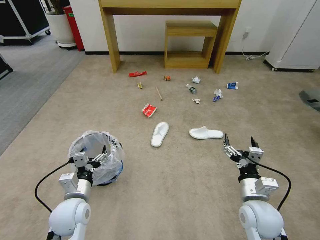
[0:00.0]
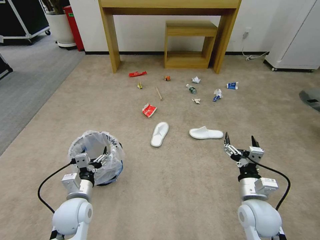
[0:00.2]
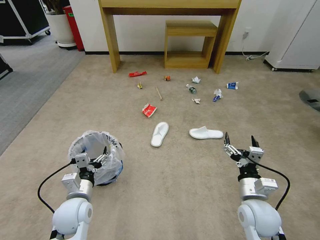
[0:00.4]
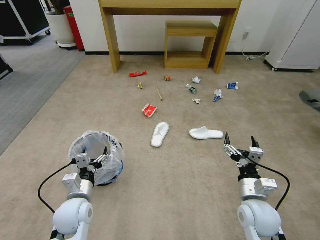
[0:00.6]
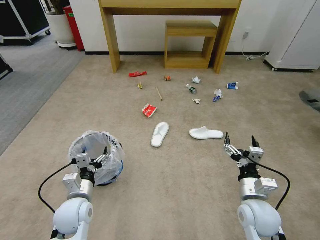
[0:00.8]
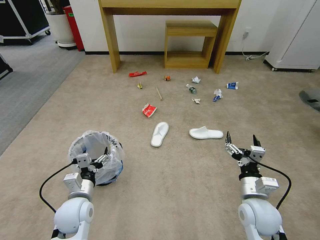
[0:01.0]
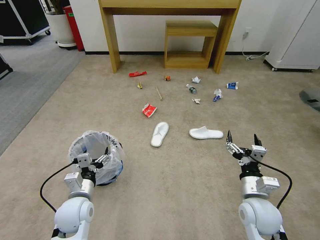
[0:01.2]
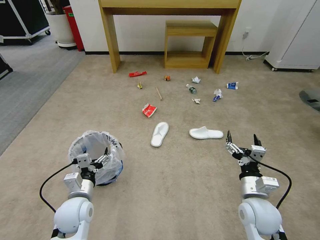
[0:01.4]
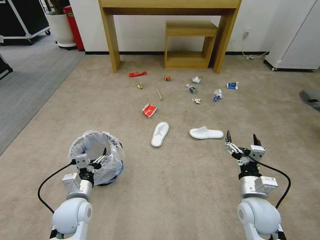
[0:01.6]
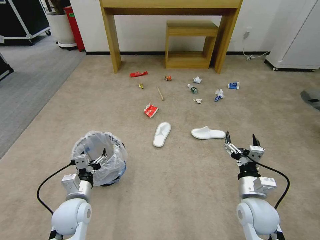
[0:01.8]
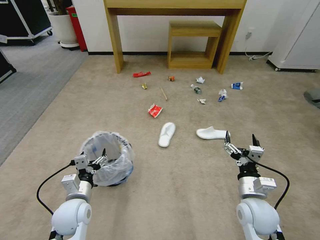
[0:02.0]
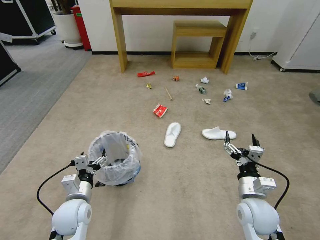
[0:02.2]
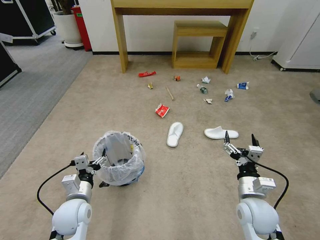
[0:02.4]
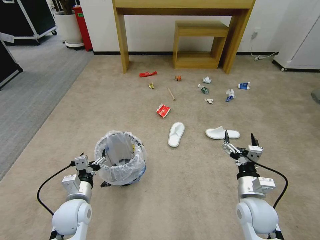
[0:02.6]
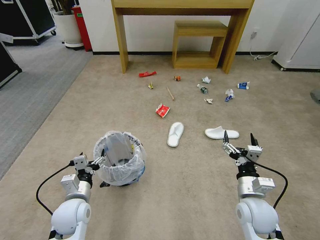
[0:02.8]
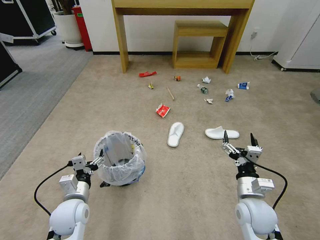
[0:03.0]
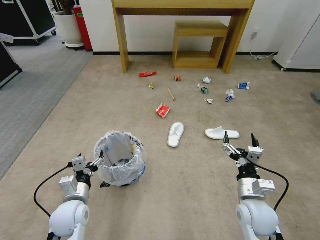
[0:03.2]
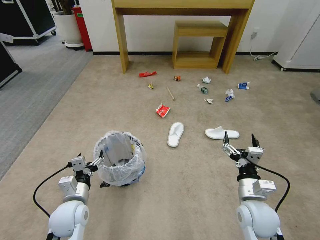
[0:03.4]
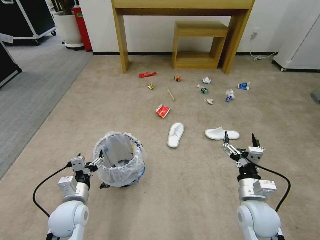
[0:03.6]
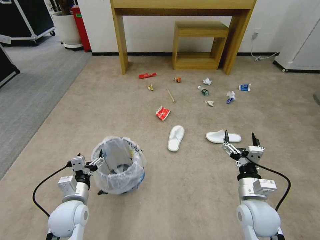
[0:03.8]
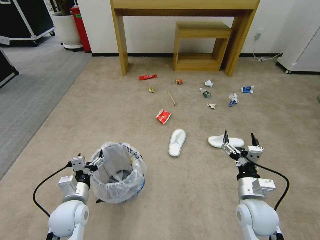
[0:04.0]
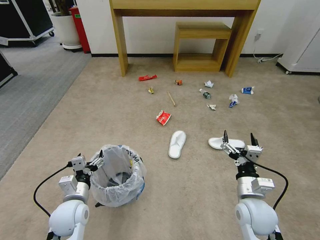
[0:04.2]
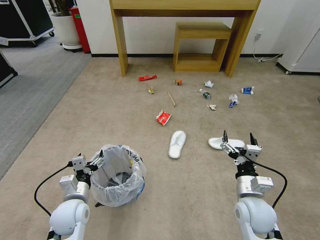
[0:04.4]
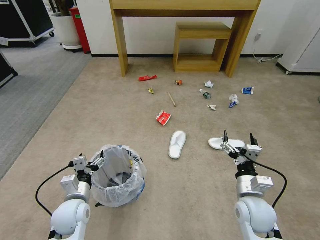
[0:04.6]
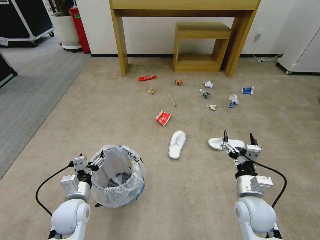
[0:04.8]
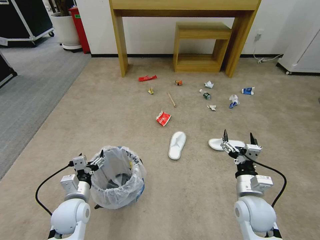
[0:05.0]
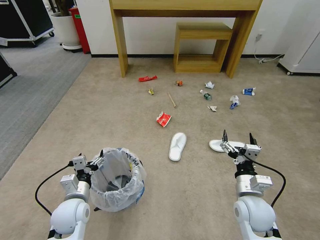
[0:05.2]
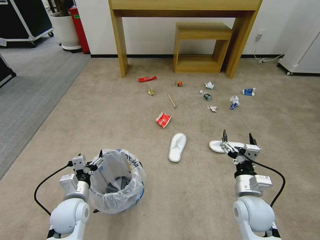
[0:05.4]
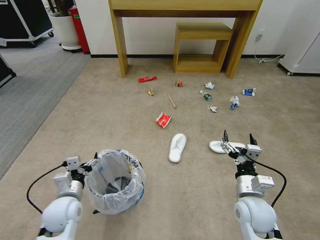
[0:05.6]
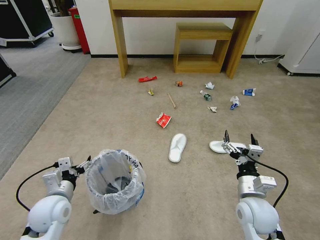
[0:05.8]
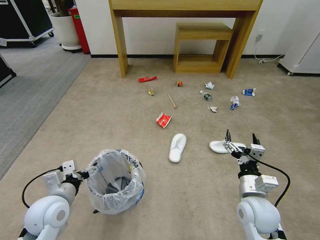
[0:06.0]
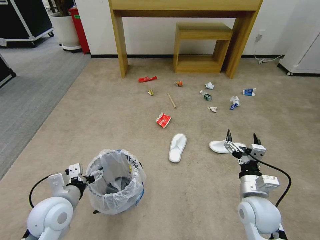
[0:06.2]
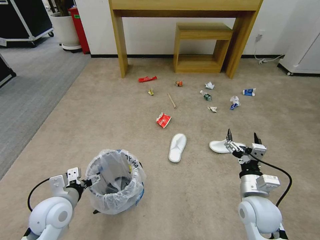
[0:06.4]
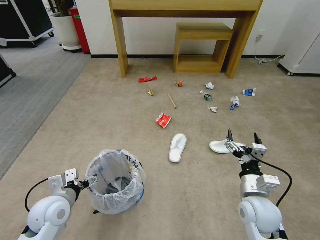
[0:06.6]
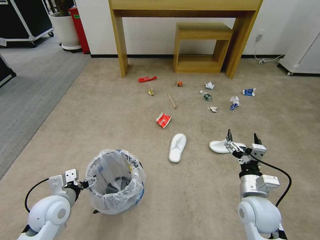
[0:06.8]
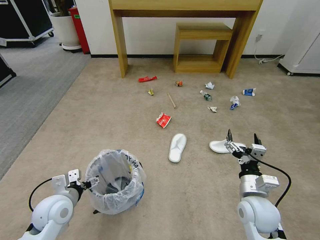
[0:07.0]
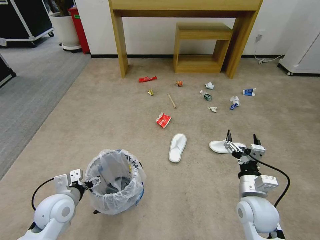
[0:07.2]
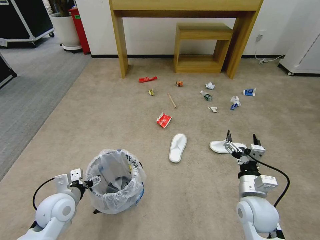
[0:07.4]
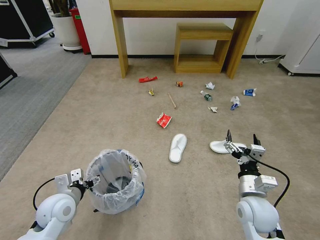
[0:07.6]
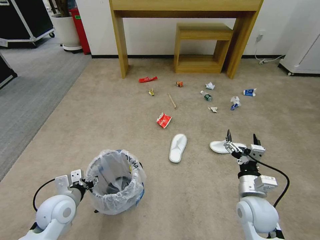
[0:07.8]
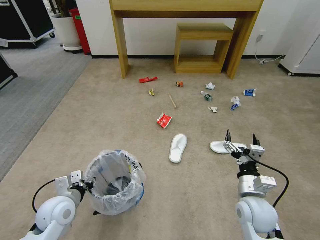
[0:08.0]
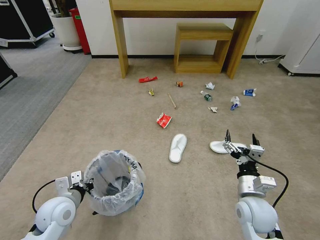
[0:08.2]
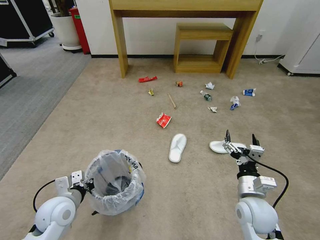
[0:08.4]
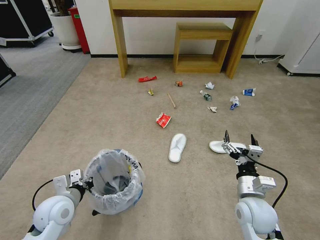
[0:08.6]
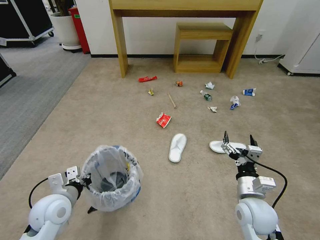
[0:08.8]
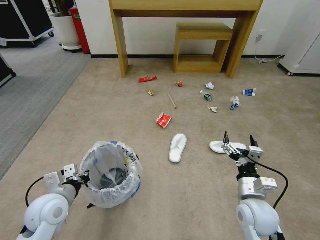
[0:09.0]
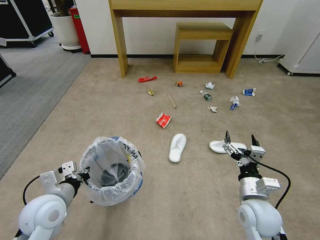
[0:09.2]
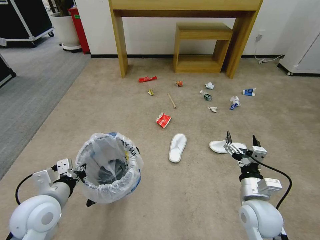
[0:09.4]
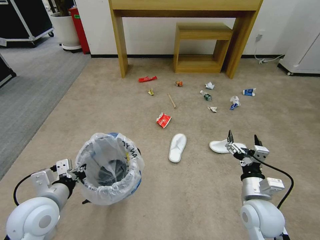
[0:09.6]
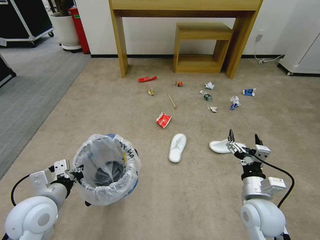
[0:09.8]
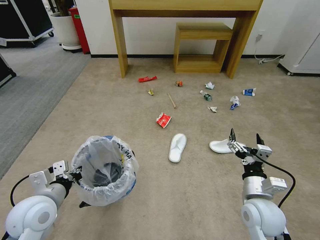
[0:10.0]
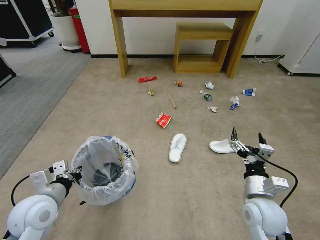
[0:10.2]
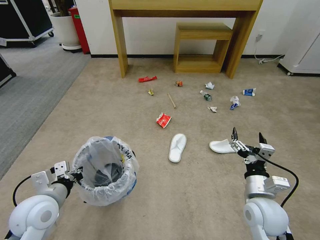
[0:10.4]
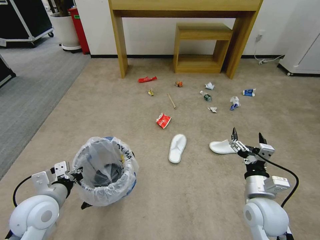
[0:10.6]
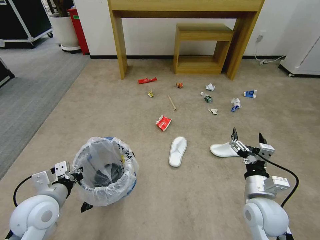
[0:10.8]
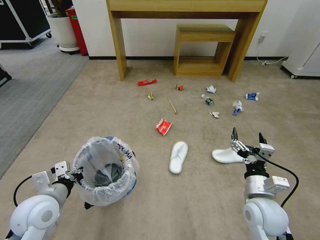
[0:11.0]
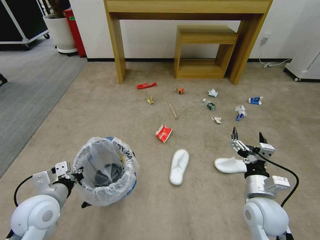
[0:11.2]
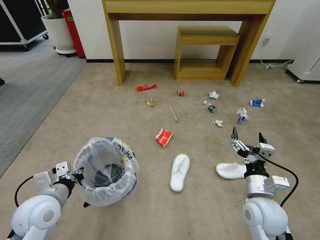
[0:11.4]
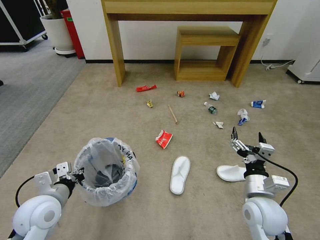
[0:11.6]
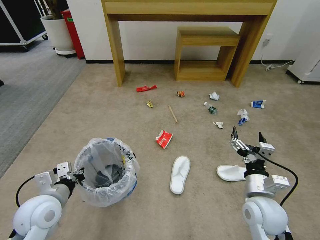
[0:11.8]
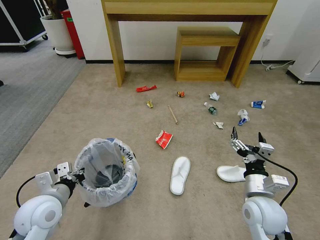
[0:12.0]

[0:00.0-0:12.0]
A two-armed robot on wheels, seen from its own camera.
Task of the whole recording: Pick up the trash bin and place the garbage on the floor into it.
0:01.6 to 0:04.4: Both grippers stay about where they are.
0:04.4 to 0:06.0: The left gripper moves upward, some 5 cm.
0:06.0 to 0:07.6: The grippers make only small movements.
0:07.6 to 0:09.0: The left gripper closes up.
0:09.0 to 0:10.4: The grippers move only a little.

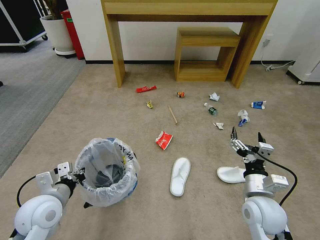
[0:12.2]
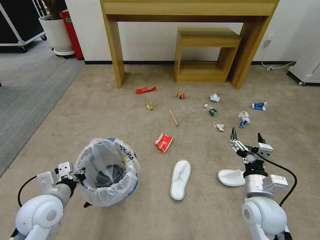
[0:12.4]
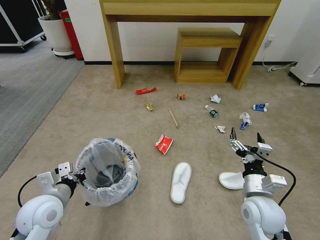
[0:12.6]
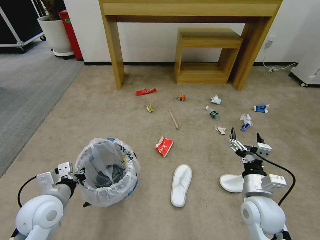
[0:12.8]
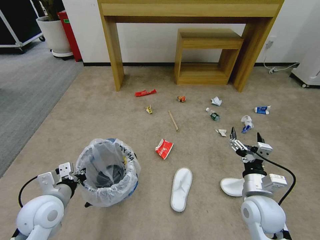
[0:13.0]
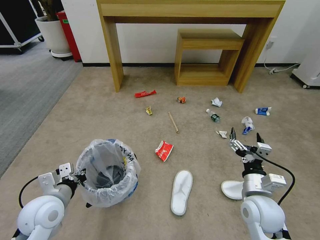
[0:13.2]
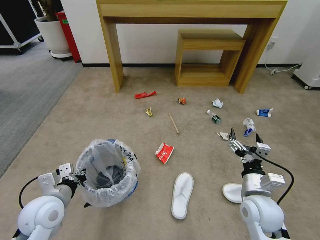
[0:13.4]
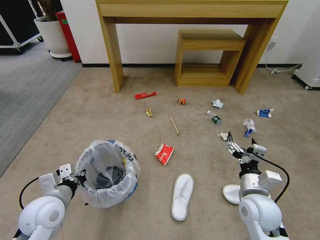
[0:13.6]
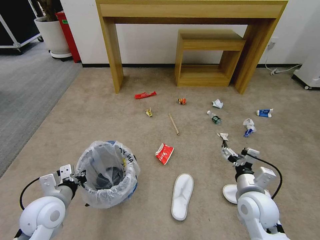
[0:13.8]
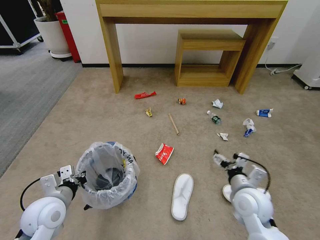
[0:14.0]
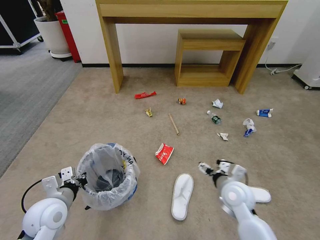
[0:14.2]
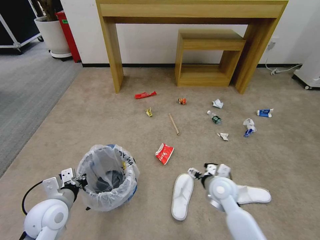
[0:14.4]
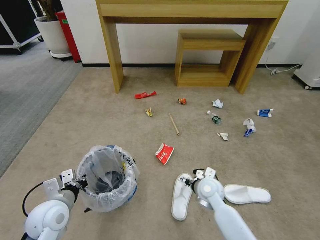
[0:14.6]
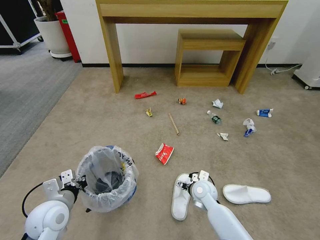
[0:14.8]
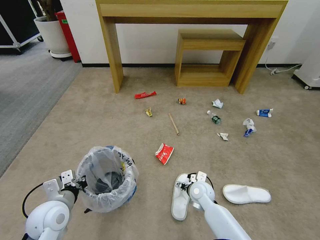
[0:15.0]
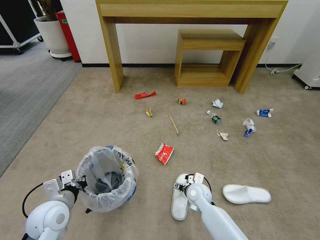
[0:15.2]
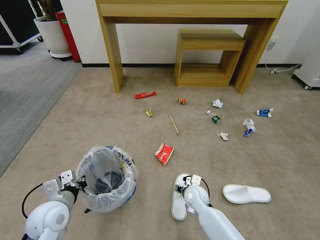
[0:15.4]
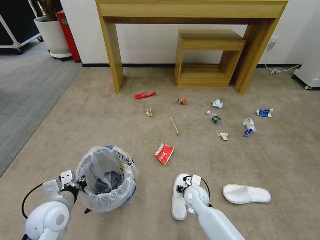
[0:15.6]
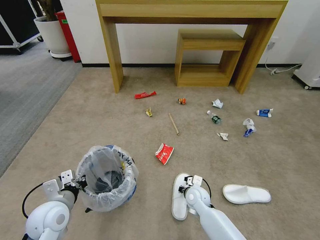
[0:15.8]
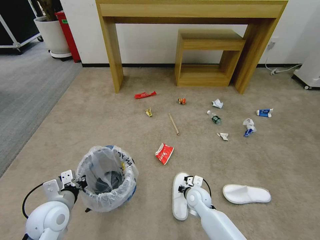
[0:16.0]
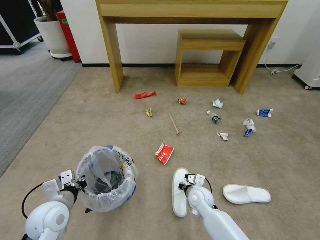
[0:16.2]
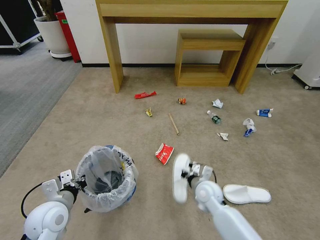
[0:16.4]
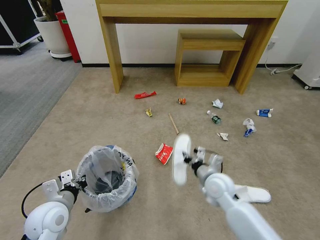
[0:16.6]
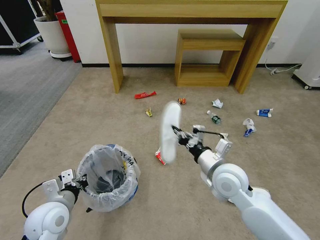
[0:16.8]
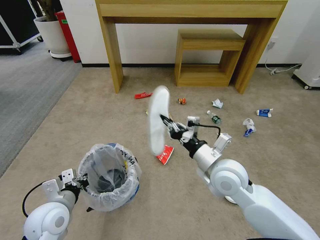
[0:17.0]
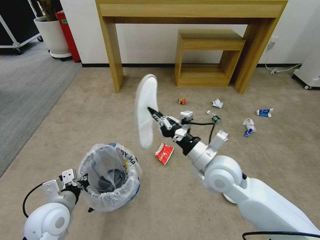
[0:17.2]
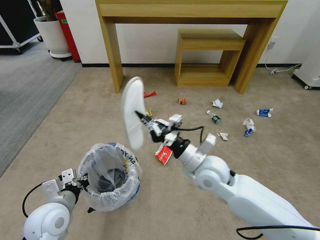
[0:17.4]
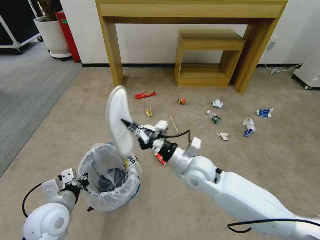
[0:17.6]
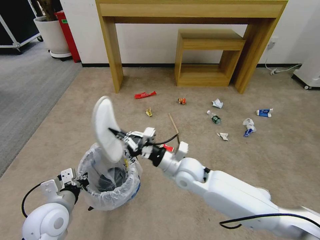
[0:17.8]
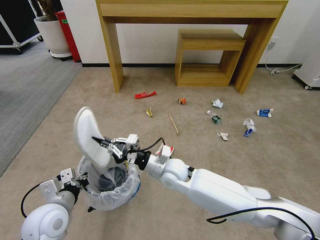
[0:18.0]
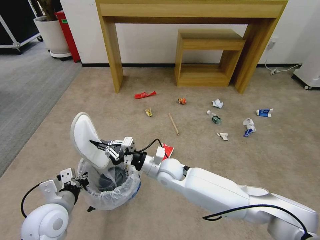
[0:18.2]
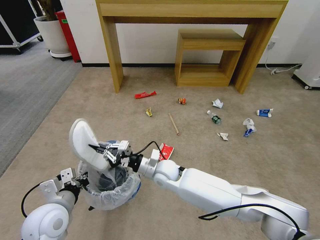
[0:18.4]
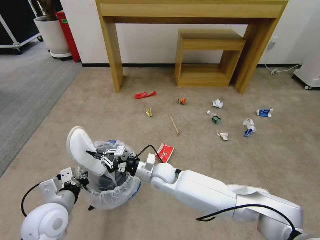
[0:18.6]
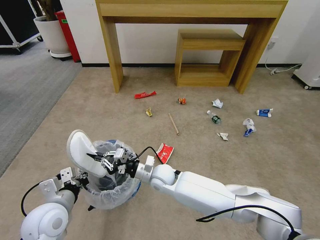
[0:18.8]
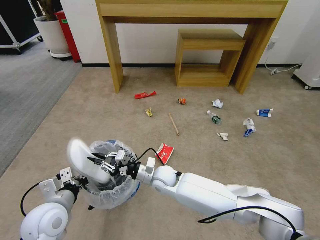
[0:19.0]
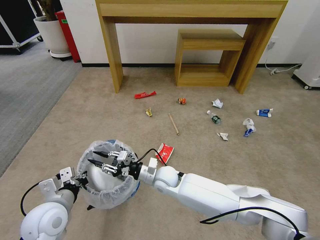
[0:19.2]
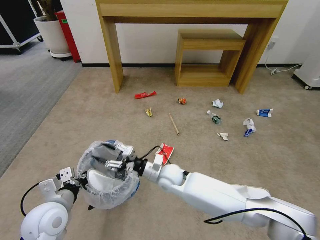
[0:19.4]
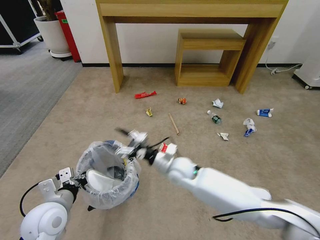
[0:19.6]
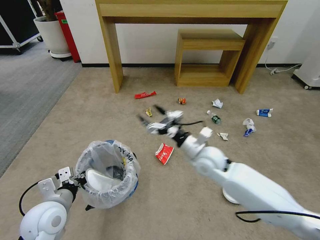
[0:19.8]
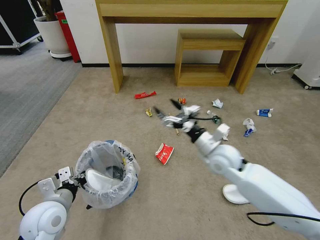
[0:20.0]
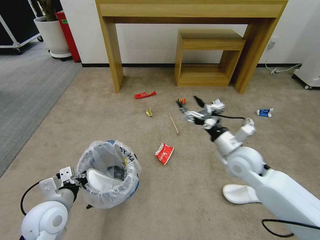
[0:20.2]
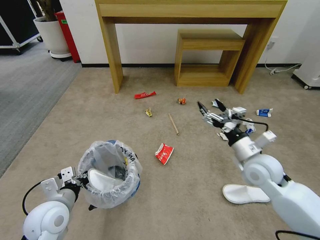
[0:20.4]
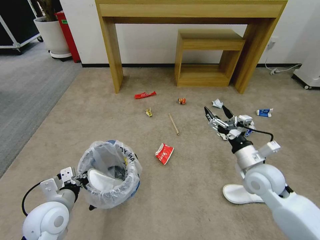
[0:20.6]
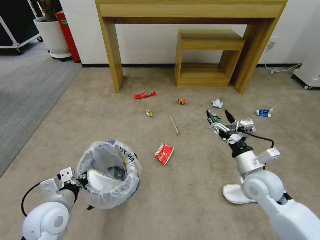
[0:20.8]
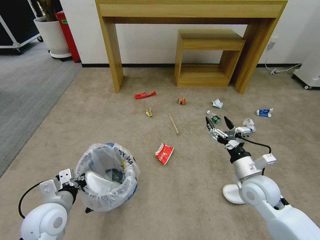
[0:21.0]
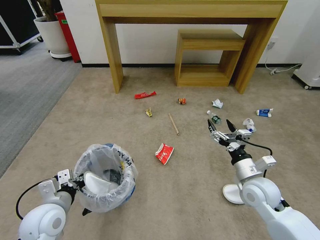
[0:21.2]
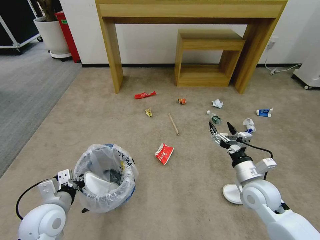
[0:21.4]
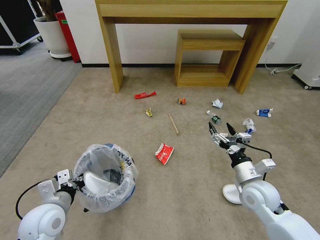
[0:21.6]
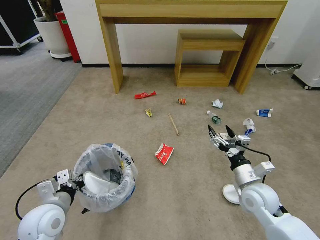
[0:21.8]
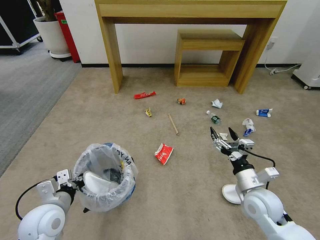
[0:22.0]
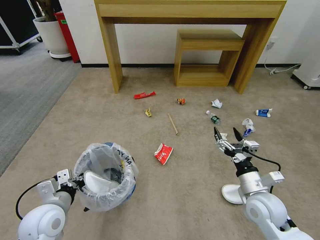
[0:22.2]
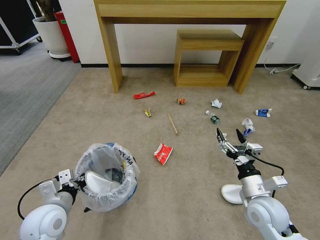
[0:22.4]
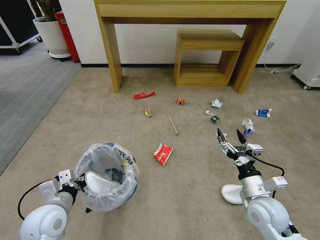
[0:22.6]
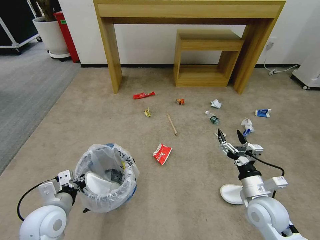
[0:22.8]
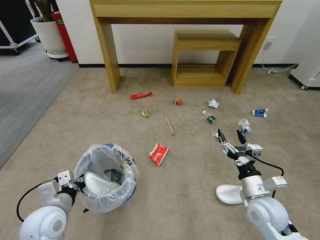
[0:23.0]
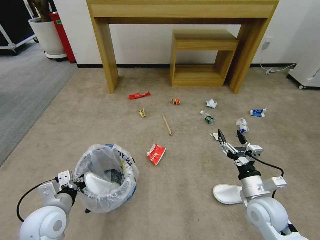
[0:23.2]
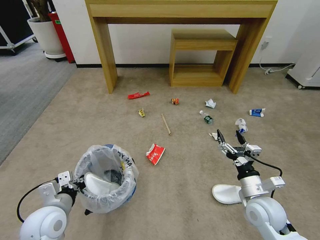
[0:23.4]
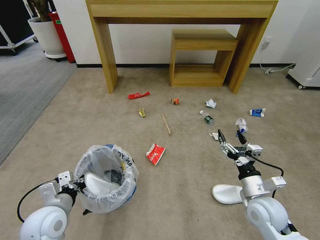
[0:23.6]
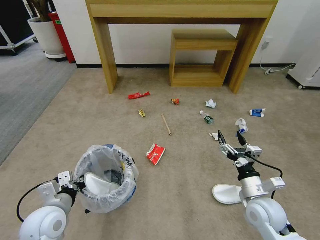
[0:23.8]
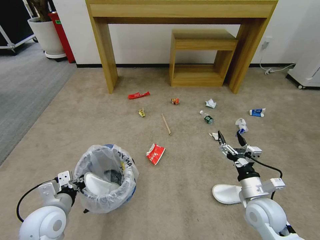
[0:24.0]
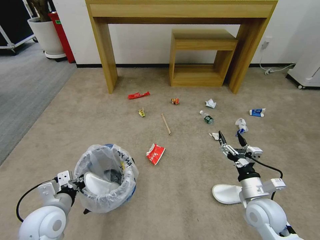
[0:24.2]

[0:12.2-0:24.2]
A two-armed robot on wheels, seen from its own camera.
Task of the whole recording: Pick up the trash bin and place the garbage on the floor into it.
0:13.8 to 0:15.2: The right gripper shifts about 20 cm downward, to the left and forward.
0:15.2 to 0:16.6: The right gripper heads upward, covering about 15 cm, and closes its fingers.
0:16.6 to 0:18.2: The right gripper moves to the left, roughly 15 cm.
0:18.2 to 0:19.8: The right gripper goes approximately 15 cm to the right and upward, and opens up.
0:19.8 to 0:21.2: The right gripper moves to the right and backward, roughly 20 cm.
0:21.2 to 0:22.6: The right gripper moves backward, about 5 cm.
0:22.6 to 0:24.2: There are only small adjustments of the grippers.
